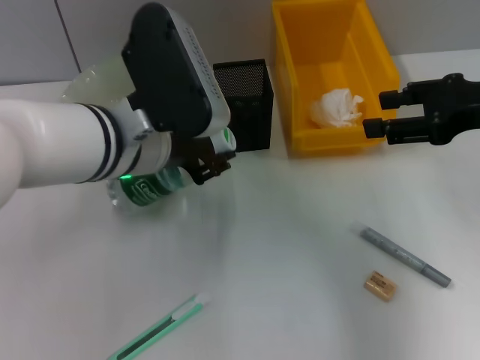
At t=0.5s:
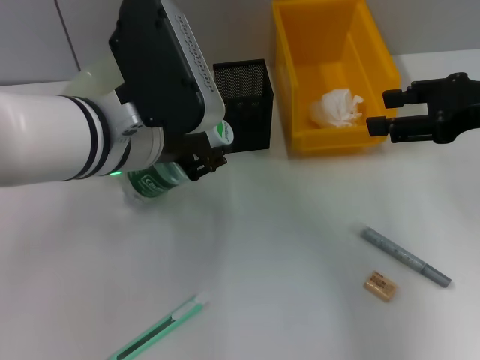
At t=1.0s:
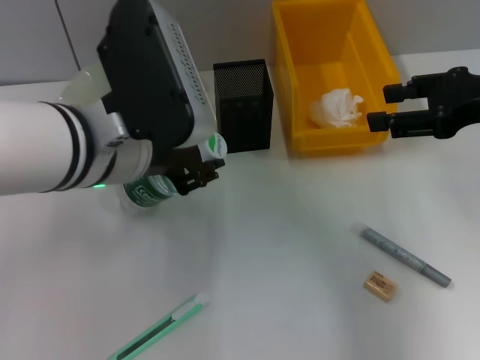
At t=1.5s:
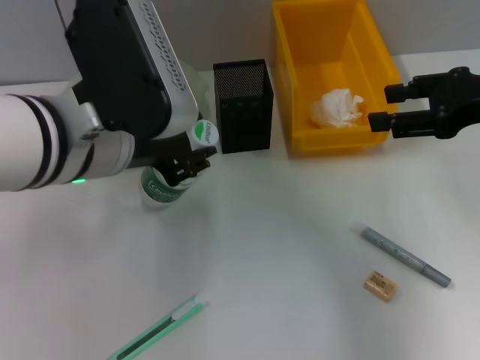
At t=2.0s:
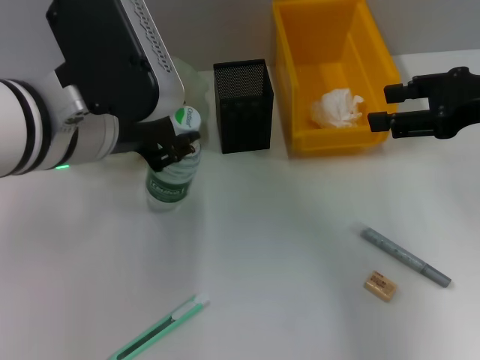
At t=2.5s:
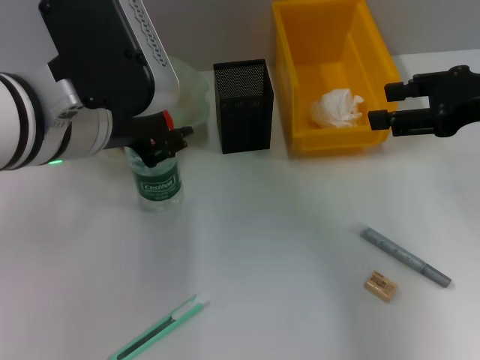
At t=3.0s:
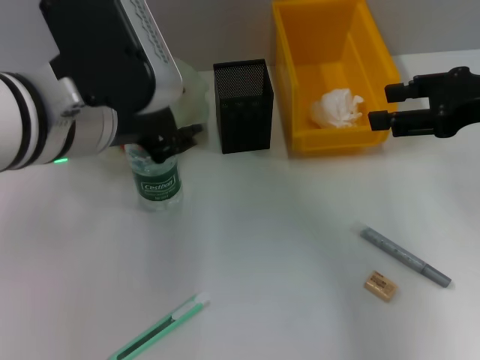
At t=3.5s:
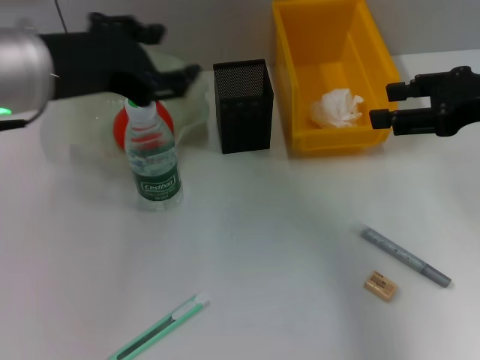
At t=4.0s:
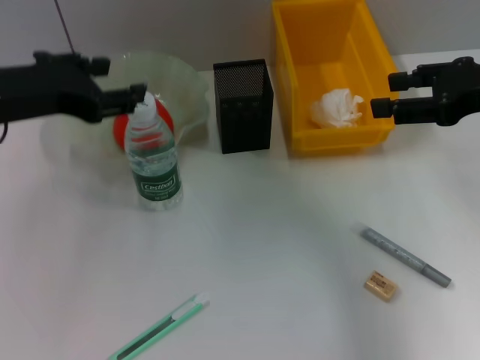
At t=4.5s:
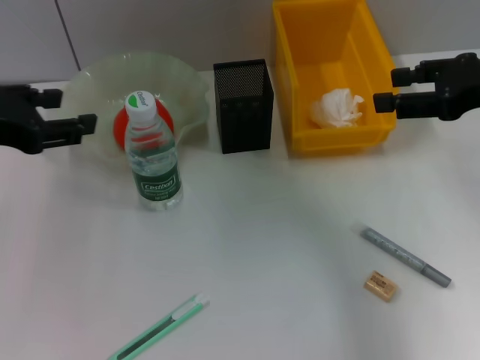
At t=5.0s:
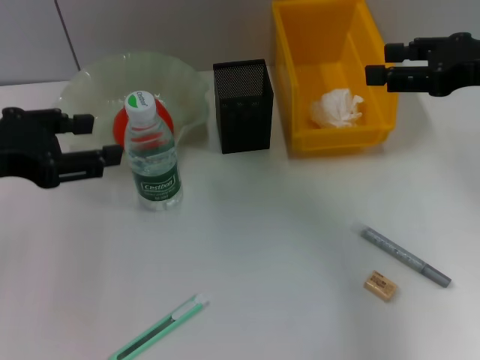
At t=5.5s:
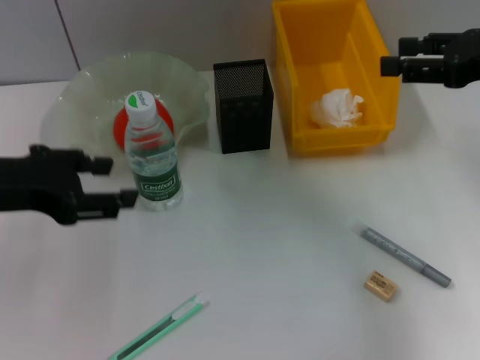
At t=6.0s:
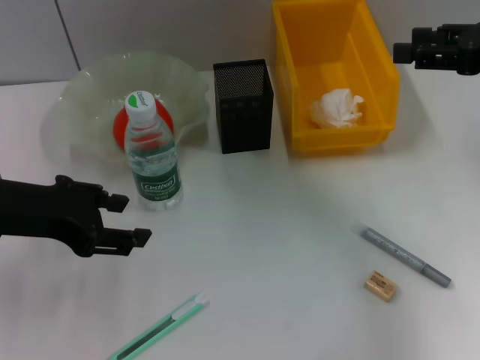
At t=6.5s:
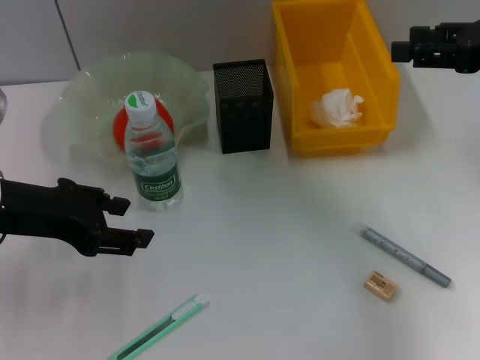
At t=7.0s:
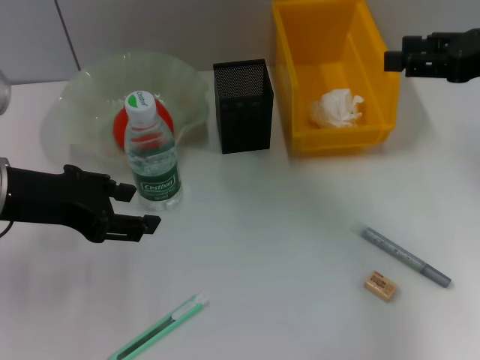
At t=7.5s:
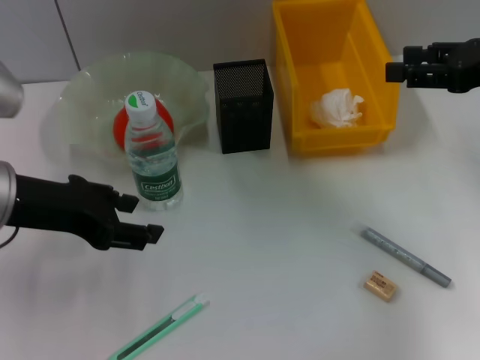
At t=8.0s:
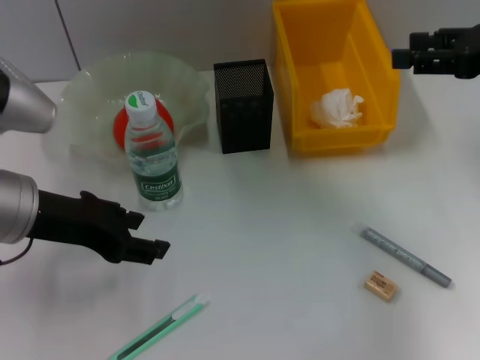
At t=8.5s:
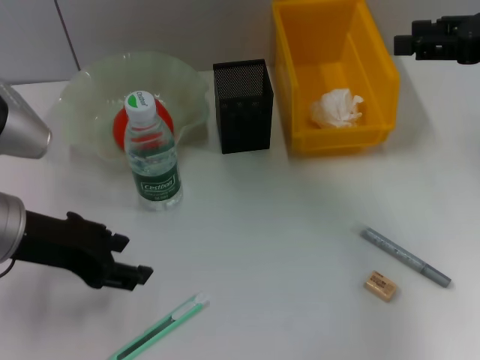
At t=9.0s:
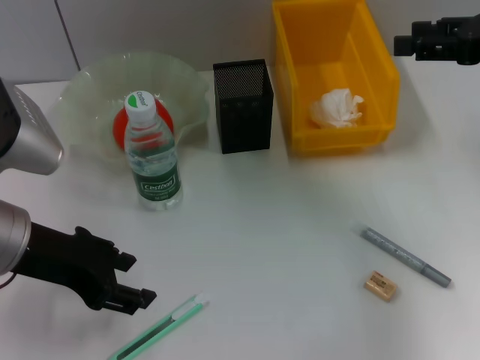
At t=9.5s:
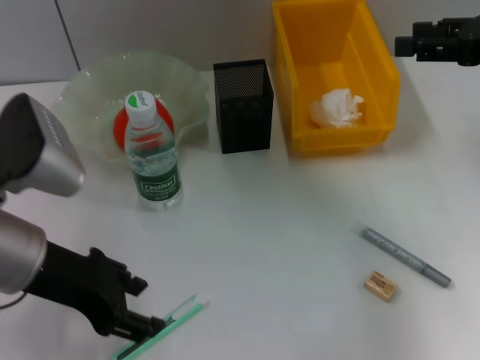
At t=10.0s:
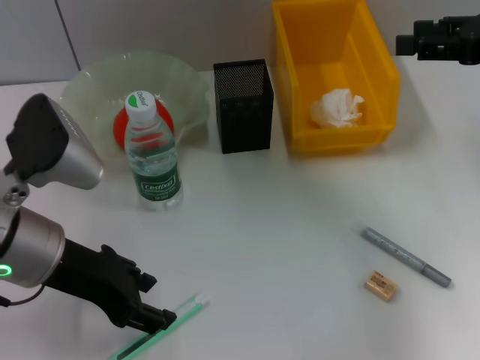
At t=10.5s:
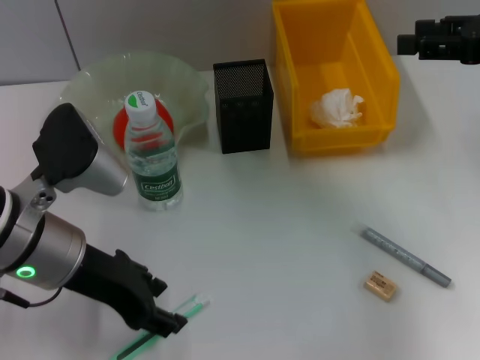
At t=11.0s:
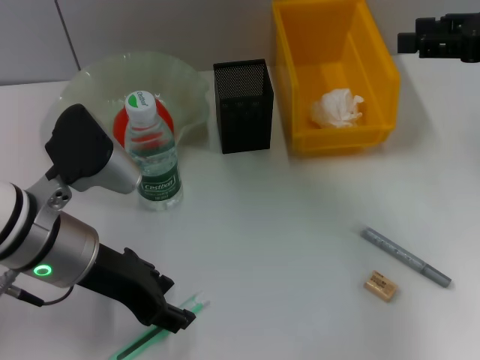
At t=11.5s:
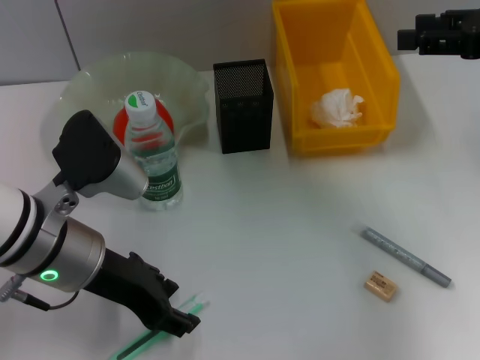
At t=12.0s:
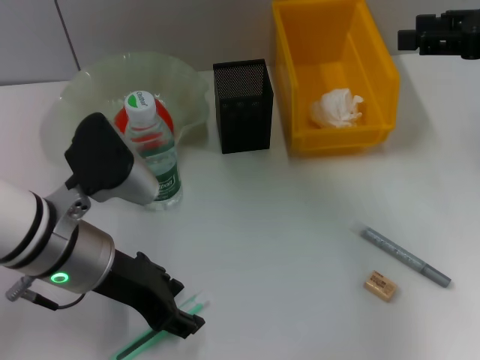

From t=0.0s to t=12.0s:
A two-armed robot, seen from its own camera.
Step, from t=0.0s to t=2.5s: Place the water bottle on the table with the left hand.
From t=0.0s to t=2.0s: The left gripper moves upward, approximately 5 cm.
From t=2.0s to t=4.0s: The left gripper goes about 10 cm to the left, and opens up.
From t=6.0s to t=10.0s: The grippers move only a little.
From t=10.0s to t=12.0s: The grippers stay close to where they were, moving slightly.

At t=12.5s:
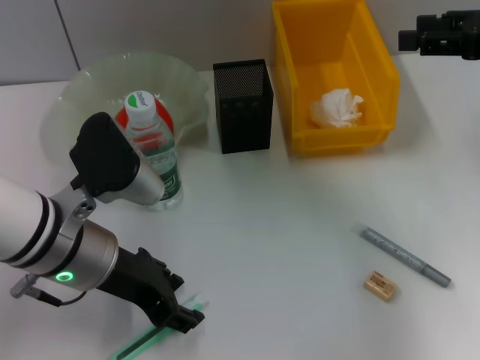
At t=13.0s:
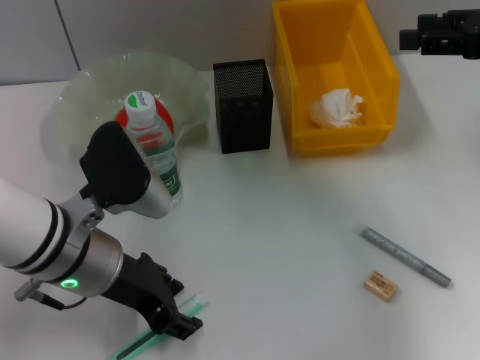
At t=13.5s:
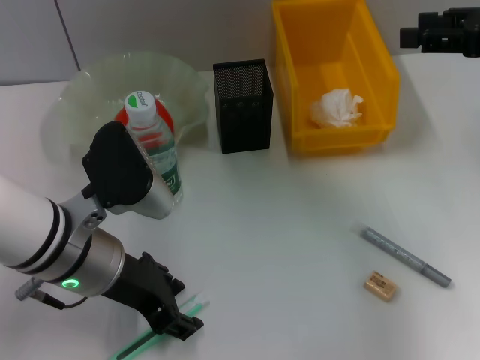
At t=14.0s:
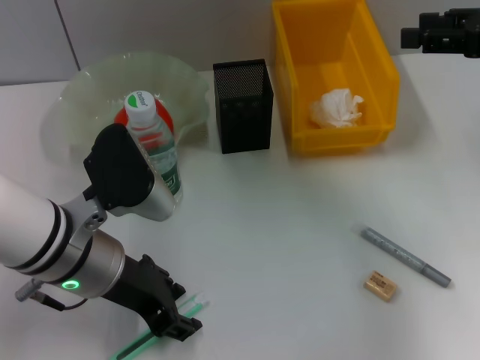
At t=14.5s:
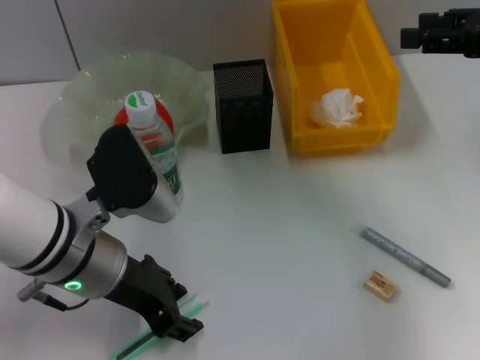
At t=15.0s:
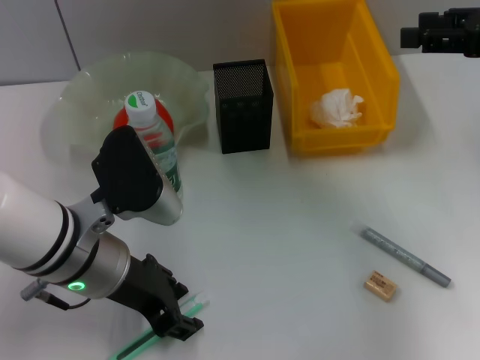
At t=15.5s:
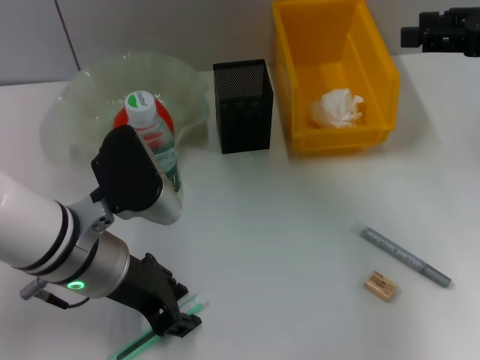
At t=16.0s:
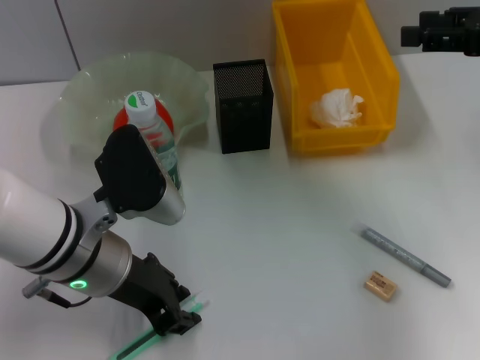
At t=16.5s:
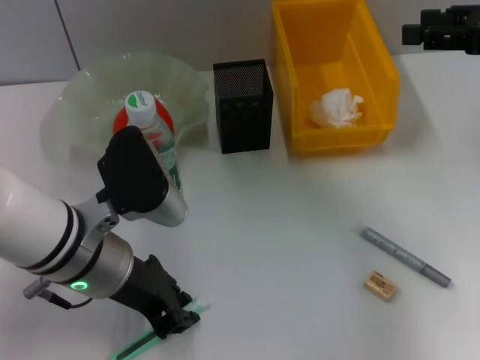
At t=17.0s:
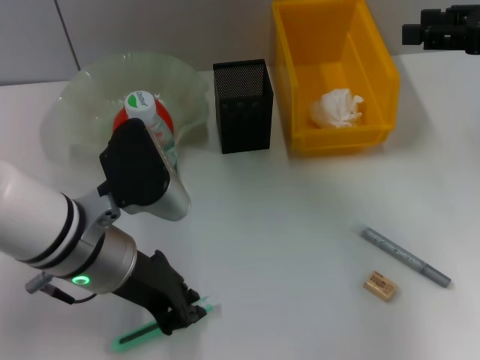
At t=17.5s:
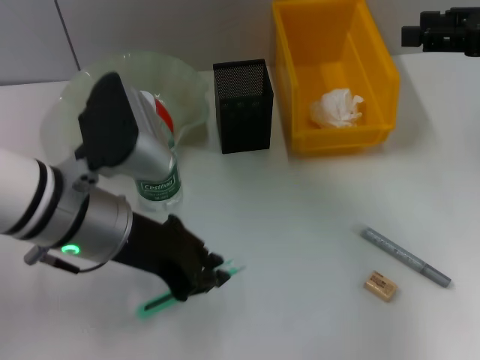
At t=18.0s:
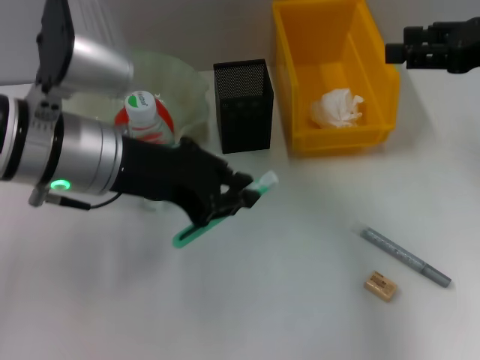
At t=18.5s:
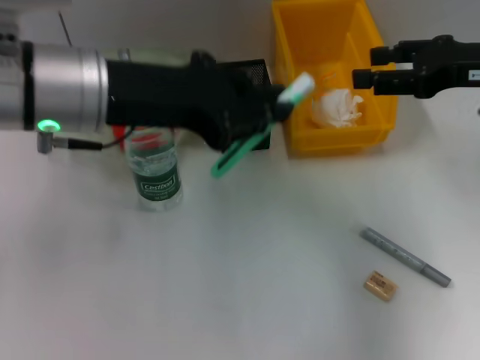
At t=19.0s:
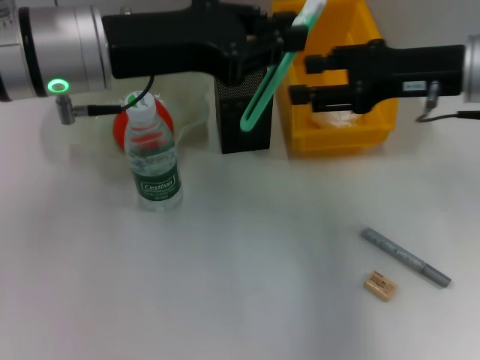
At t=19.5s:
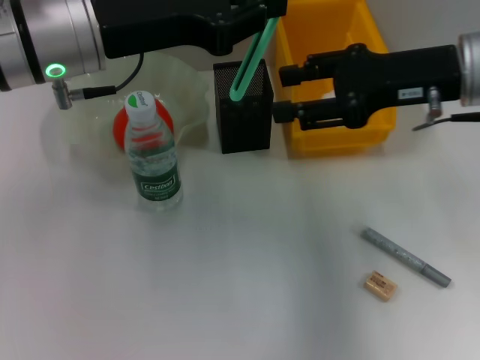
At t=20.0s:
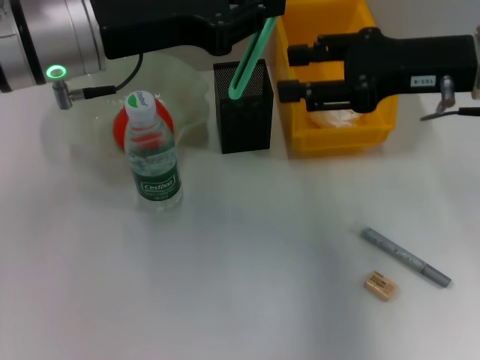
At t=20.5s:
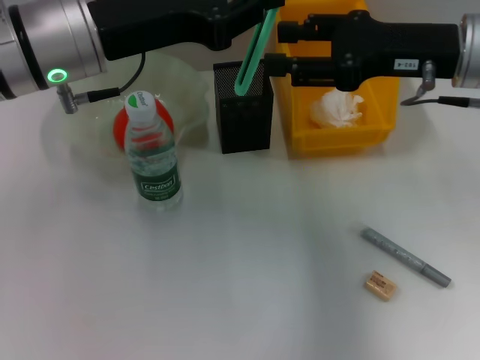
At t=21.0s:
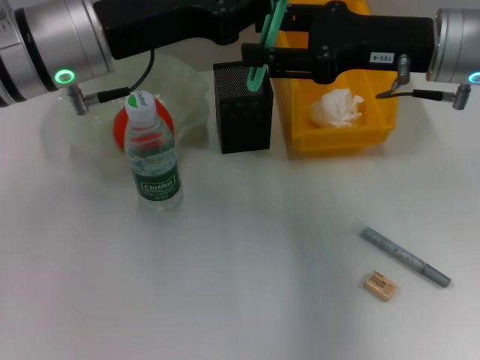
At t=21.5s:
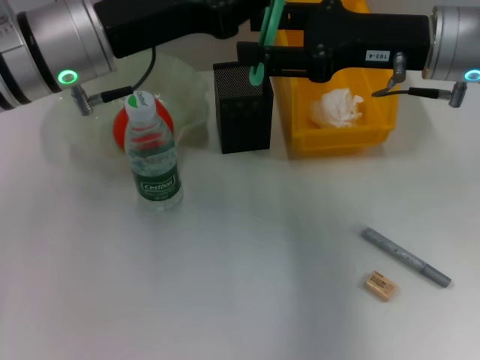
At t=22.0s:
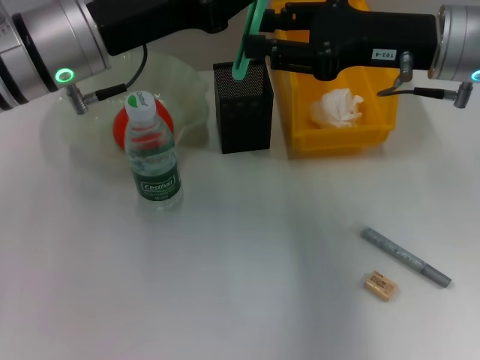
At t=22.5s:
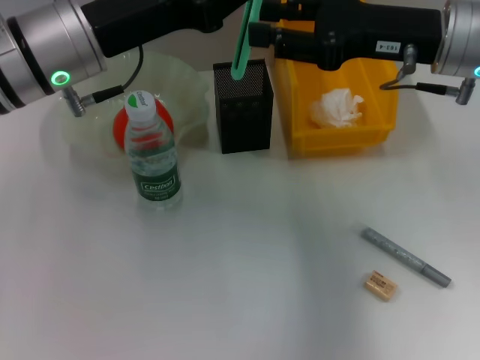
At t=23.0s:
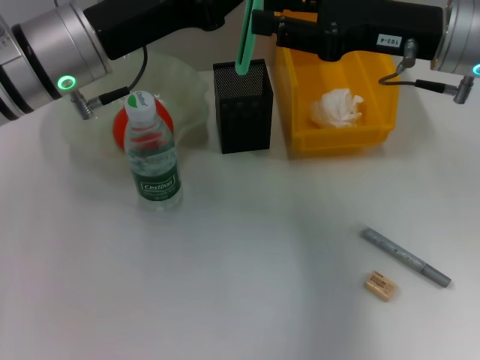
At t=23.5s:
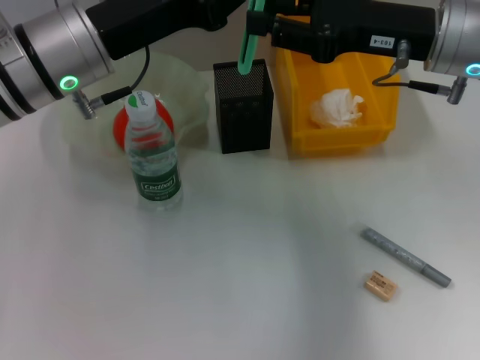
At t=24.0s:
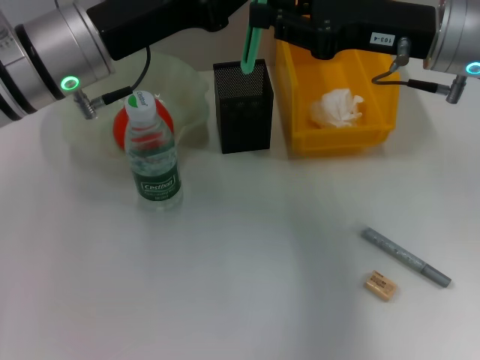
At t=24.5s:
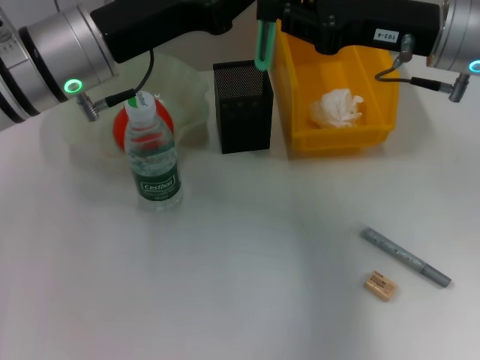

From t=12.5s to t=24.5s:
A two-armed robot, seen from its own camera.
Step, from t=12.5s to t=16.5s: Grab the blue utility knife with the left hand.
From t=12.5s to t=14.5s: The two grippers keep their place.
From t=14.5s to t=16.5s: The left gripper closes.
From t=16.5s to t=18.5s: The left gripper heads upward, covering approximately 10 cm.
From t=18.5s to t=20.5s: The right gripper travels to the left by roughly 5 cm.
From t=20.5s to t=22.5s: The grippers make only small movements.
From t=22.5s to t=24.5s: The right gripper closes.

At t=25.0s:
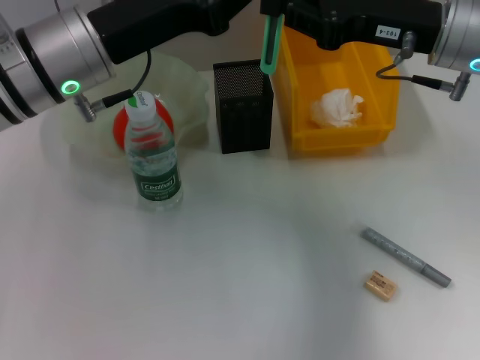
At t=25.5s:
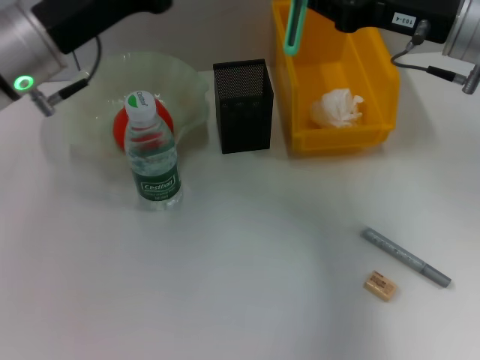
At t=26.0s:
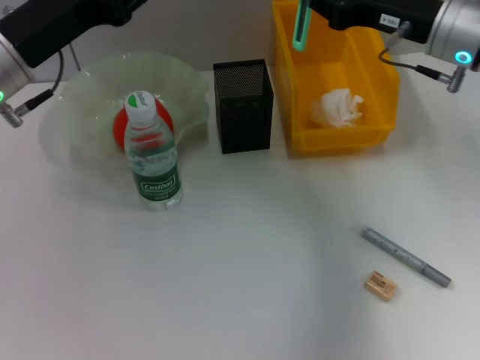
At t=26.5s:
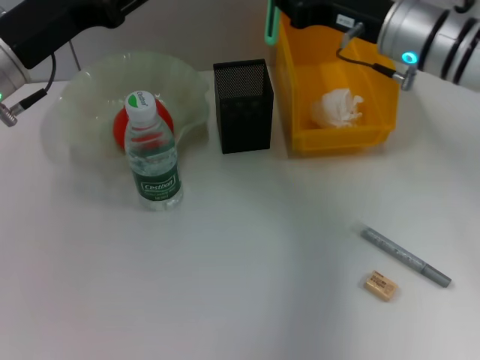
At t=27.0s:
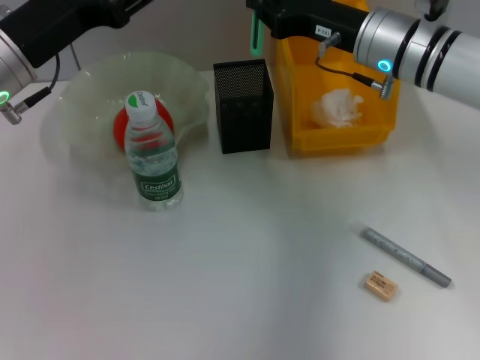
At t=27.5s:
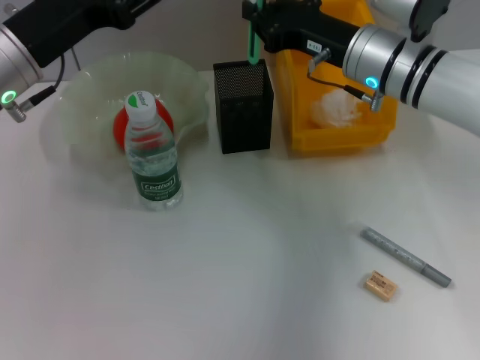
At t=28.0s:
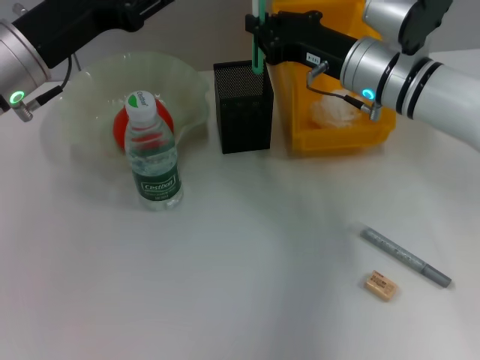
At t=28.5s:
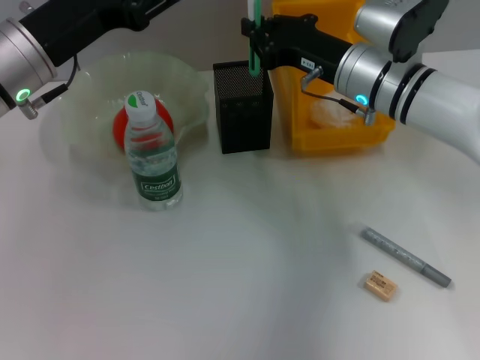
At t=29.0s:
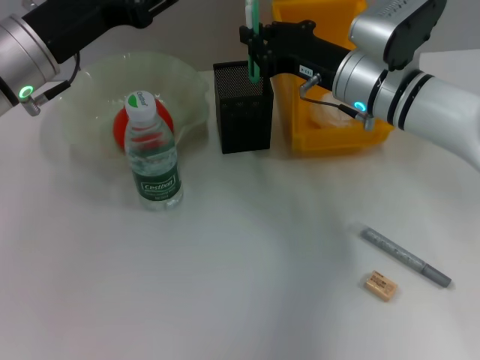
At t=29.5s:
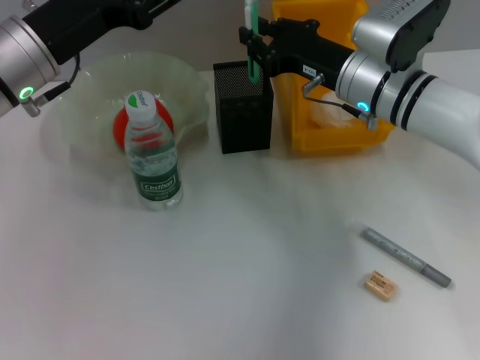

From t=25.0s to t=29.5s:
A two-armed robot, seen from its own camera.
From t=25.0s to t=27.0s: The right gripper moves forward and downward, roughly 10 cm; the left gripper travels to the left by about 5 cm, and opens.
From t=27.0s to t=29.5s: The grippers stay close to where they were, moving slightly.
